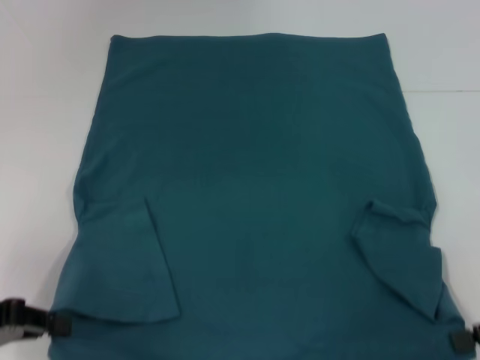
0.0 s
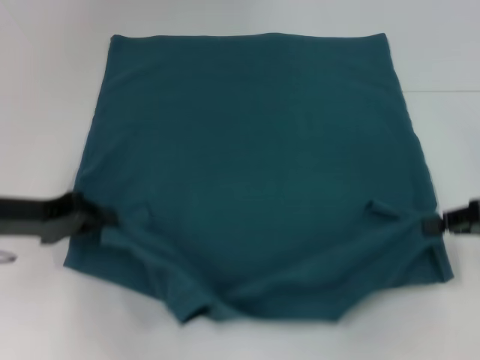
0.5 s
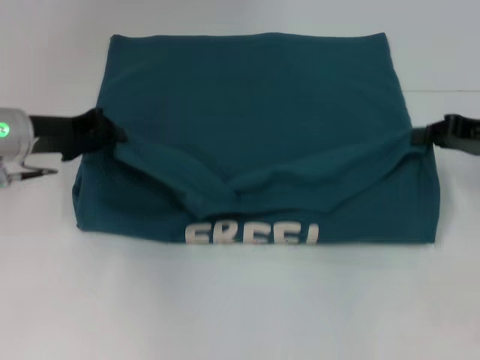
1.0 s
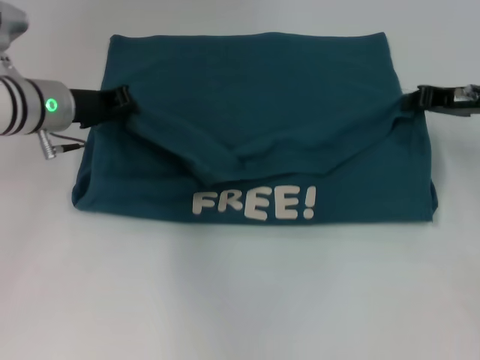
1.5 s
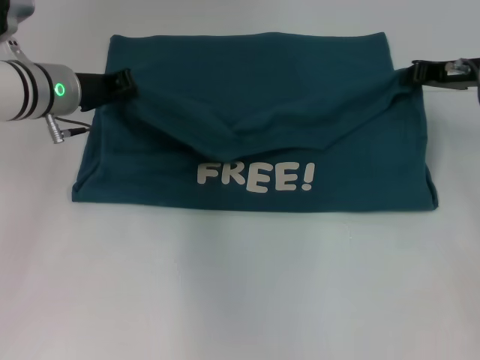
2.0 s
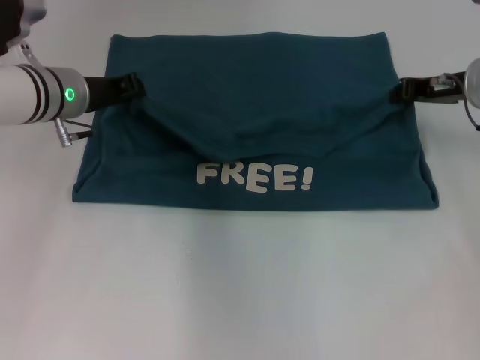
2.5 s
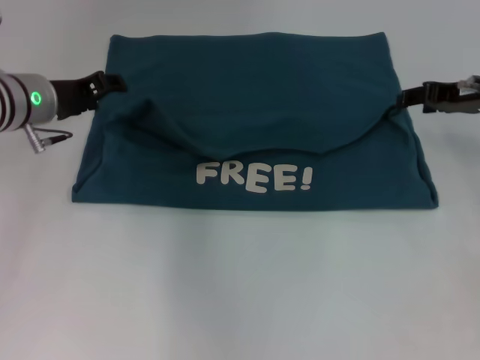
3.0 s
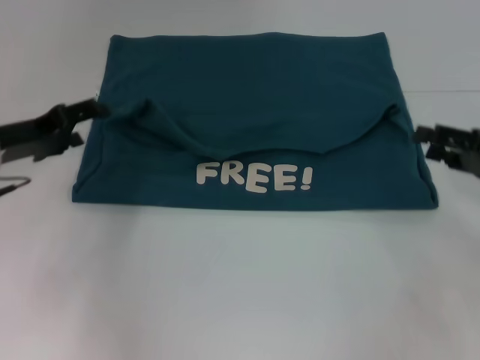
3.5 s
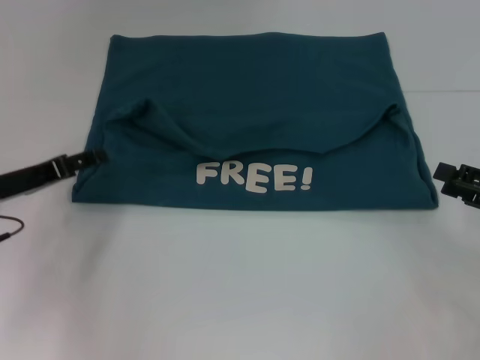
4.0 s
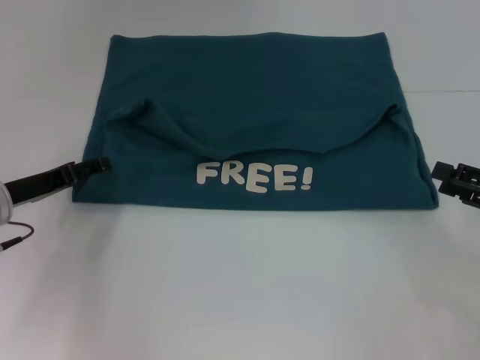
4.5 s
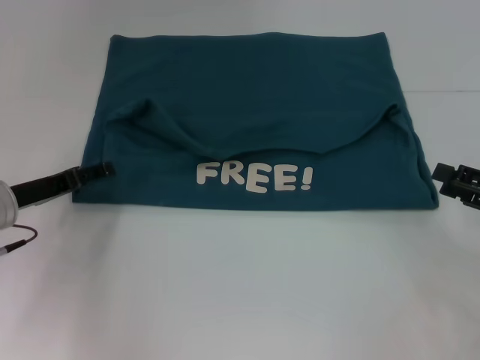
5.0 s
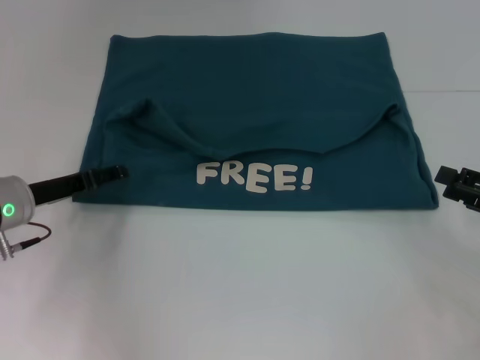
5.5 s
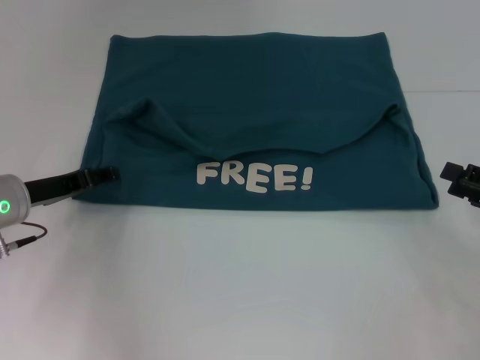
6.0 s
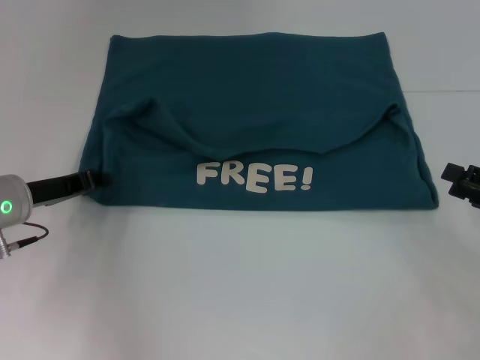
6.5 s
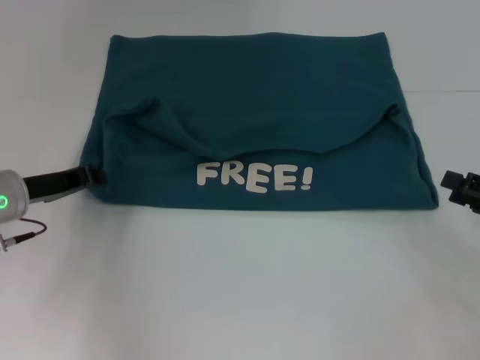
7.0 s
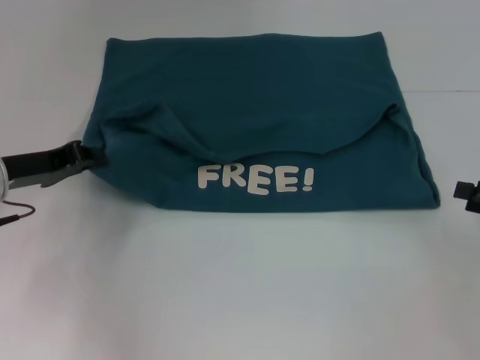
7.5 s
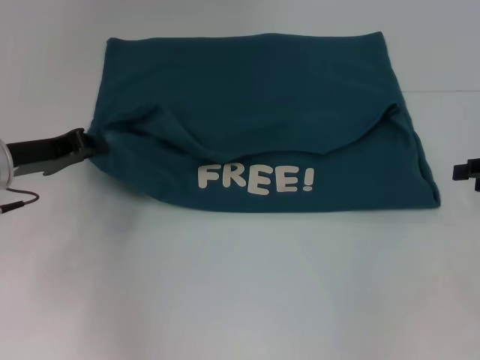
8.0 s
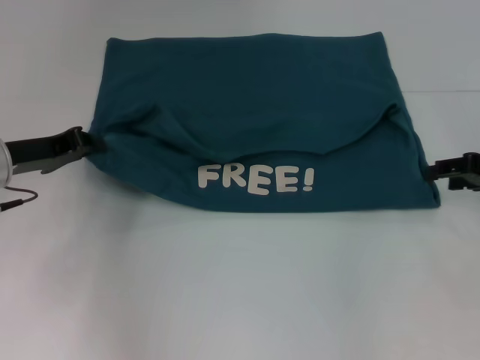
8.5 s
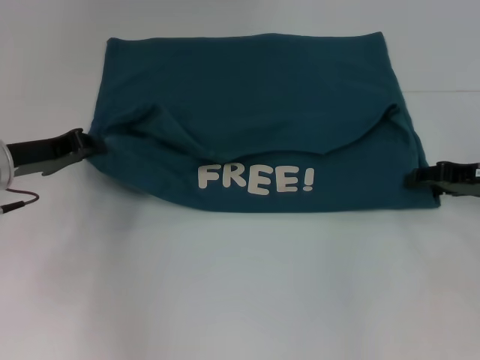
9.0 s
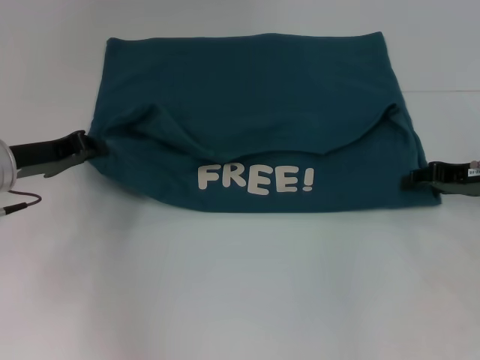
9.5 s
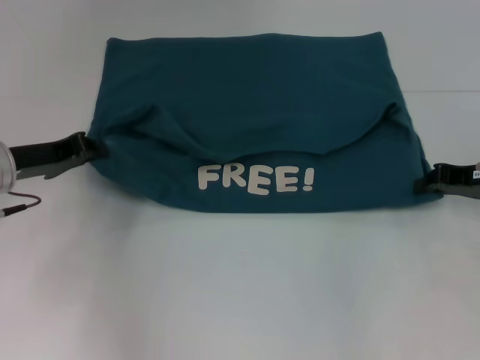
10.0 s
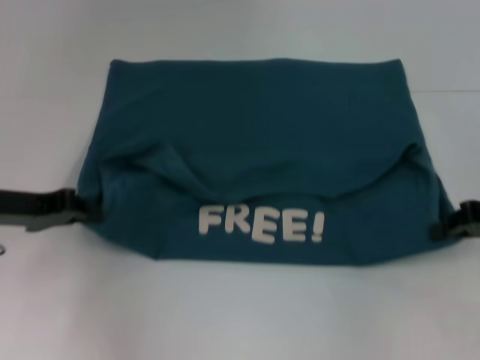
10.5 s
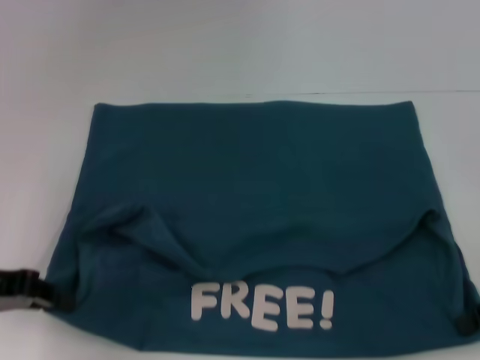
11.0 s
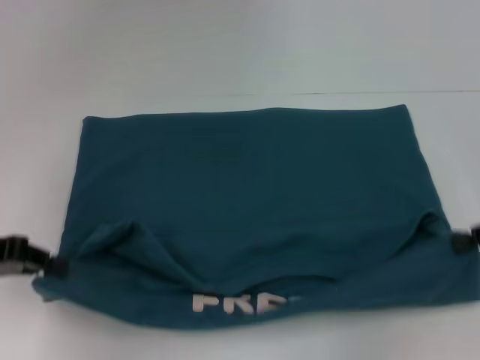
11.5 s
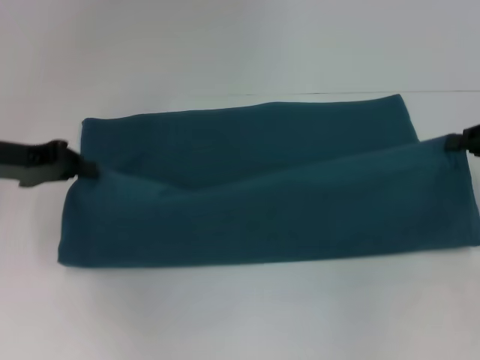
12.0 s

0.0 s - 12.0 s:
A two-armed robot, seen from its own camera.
Step, 0.0 s - 2.5 s: Fold the clothes to the left.
Step, 0.0 s - 2.5 s: Fold the clothes to the right.
Step, 3.0 s - 11.0 s: Pull the clothes with your left hand.
Step, 3.0 s - 11.0 s: Pull the clothes with your right hand.
0.0 s - 2.0 s: The left gripper moves forward and to the right, about 25 cm; the right gripper shifts roughly 20 cm forward.
2.0 s - 4.0 s: The left gripper heads backward, to the left and downward, covering roughly 15 cm, and opens up. The right gripper is displaced backward, to the right and downward by some 20 cm, and opens up.
4.0 s - 6.0 s: There are only small adjustments of the grippers.
6.0 s - 8.0 s: The left gripper closes its fingers. Meanwhile the right gripper travels forward by some 5 cm.
8.0 s - 10.0 s: The right gripper travels to the left by about 5 cm, and closes.
10.0 s - 12.0 s: The right gripper goes backward and returns, approximately 10 cm each way; the left gripper travels upward by some 5 cm, and goes backward and returns, about 10 cm each way.

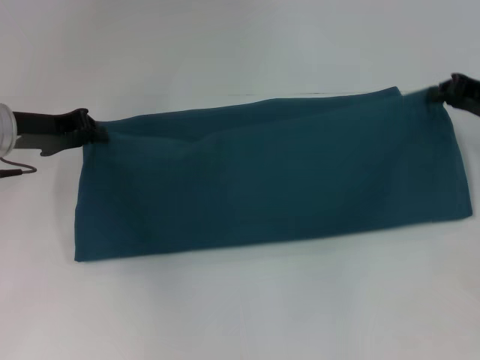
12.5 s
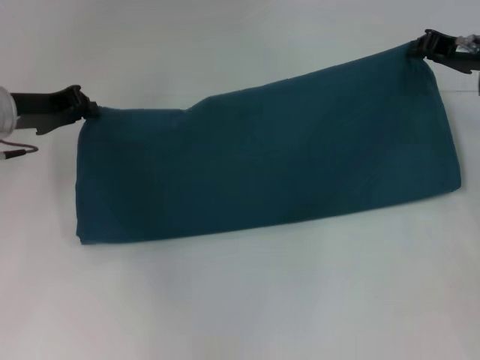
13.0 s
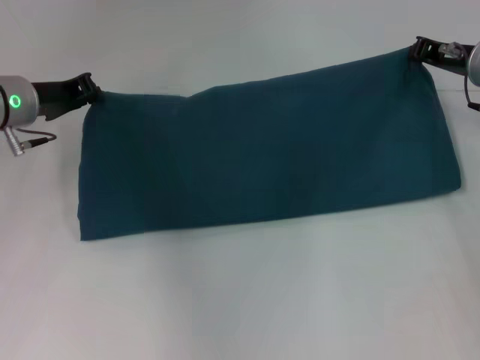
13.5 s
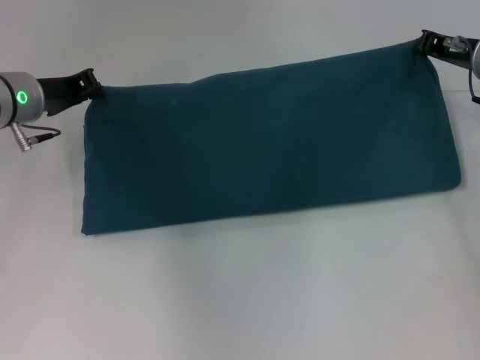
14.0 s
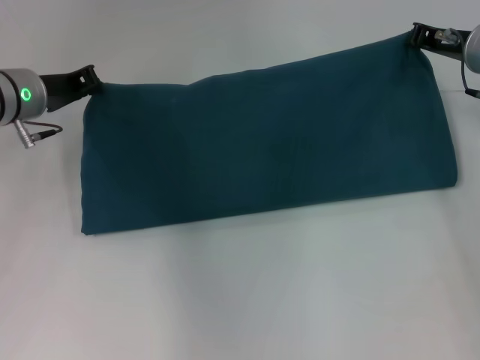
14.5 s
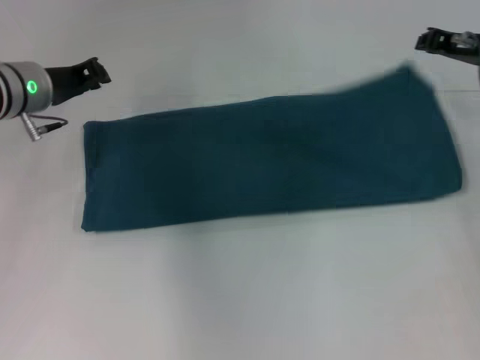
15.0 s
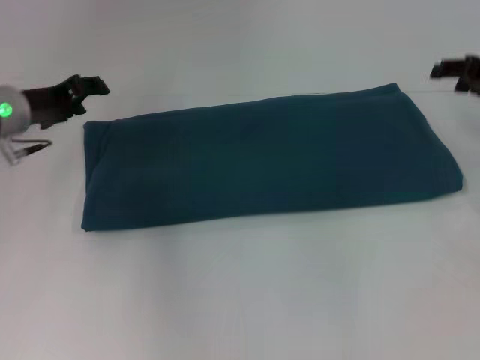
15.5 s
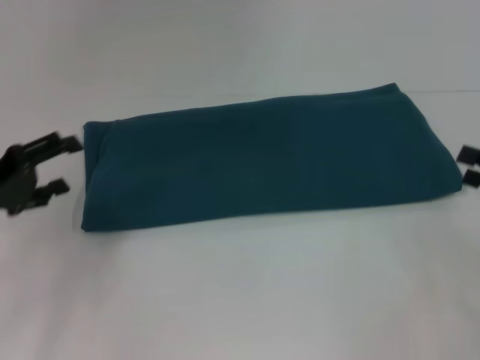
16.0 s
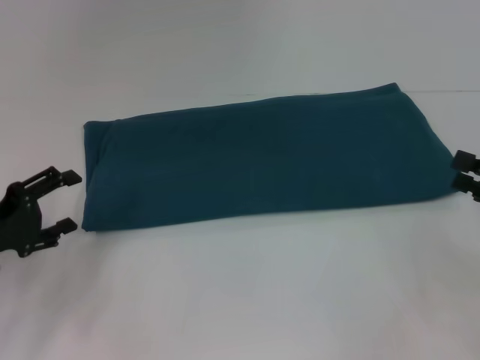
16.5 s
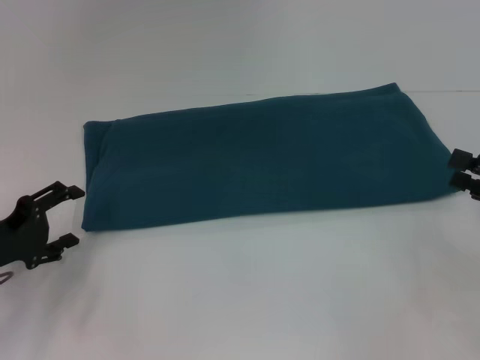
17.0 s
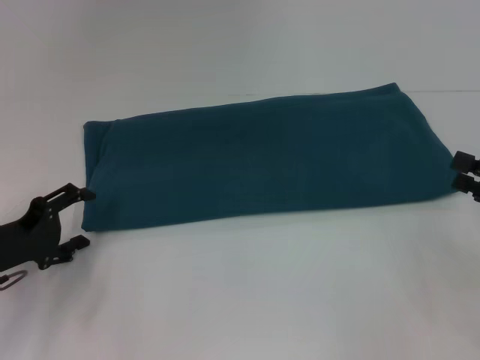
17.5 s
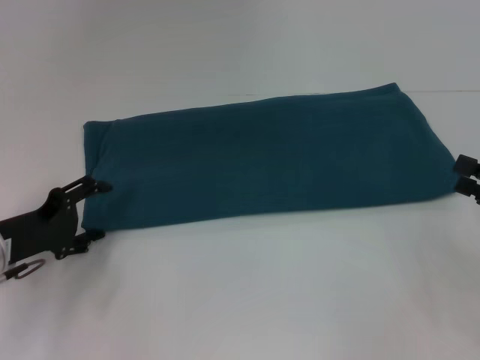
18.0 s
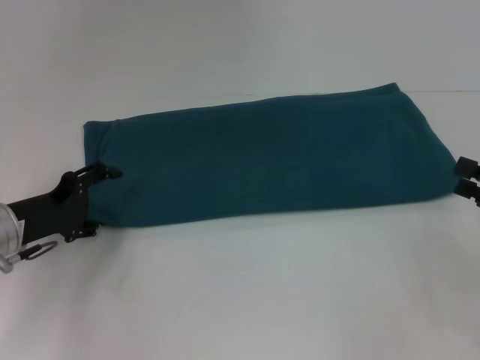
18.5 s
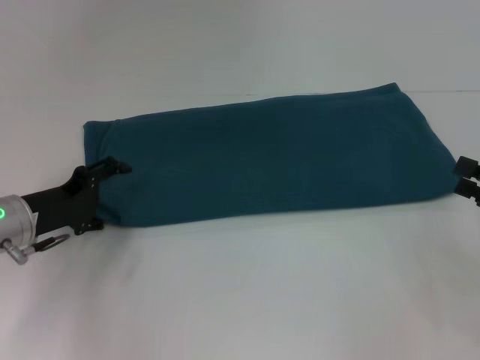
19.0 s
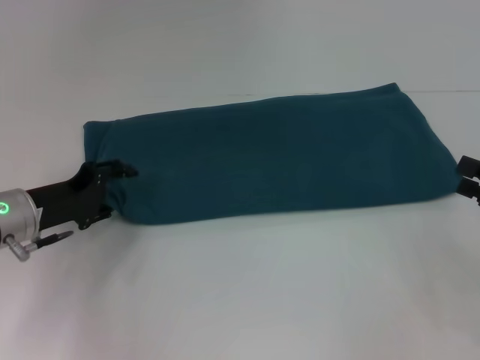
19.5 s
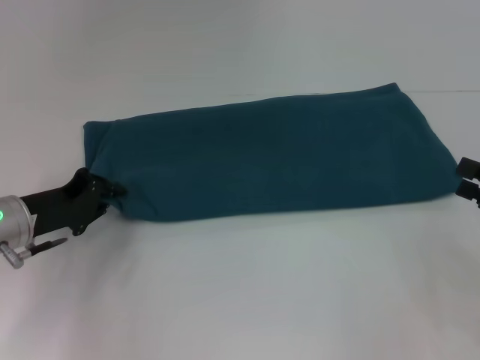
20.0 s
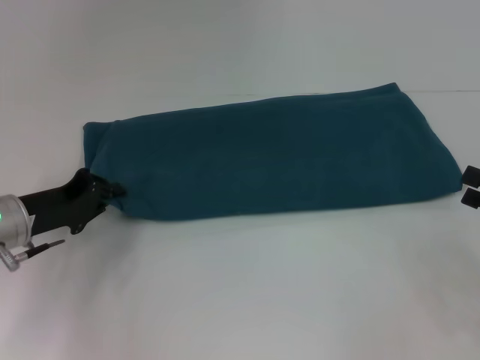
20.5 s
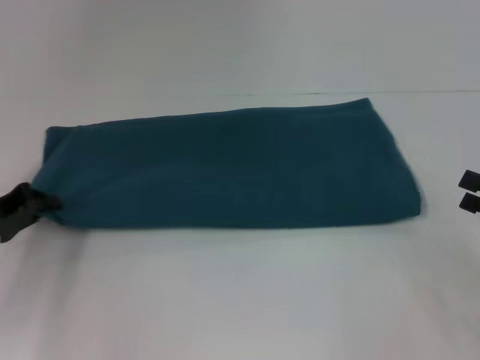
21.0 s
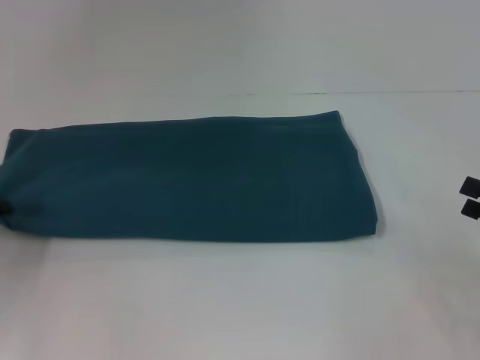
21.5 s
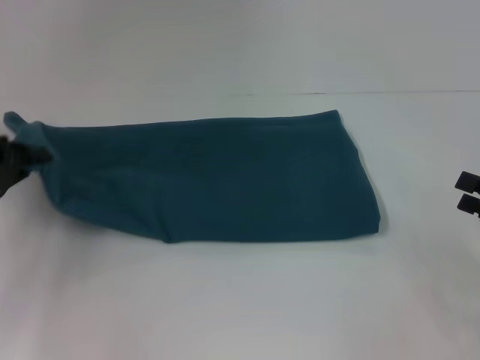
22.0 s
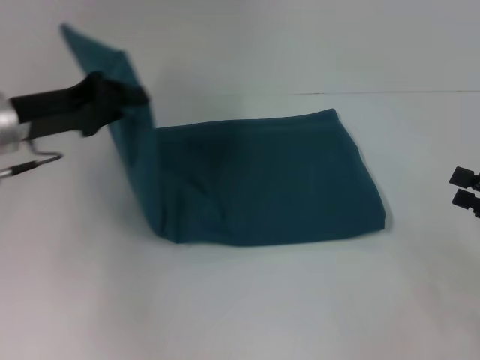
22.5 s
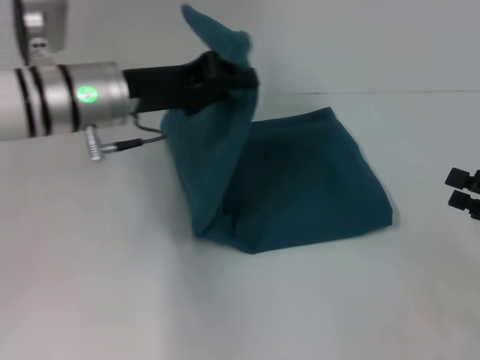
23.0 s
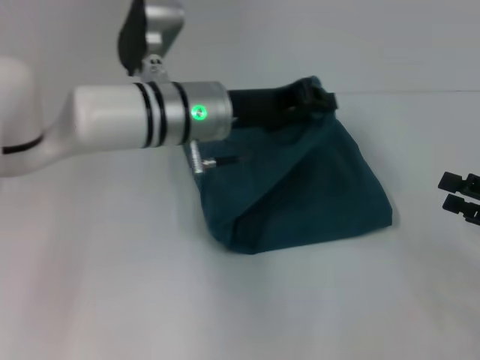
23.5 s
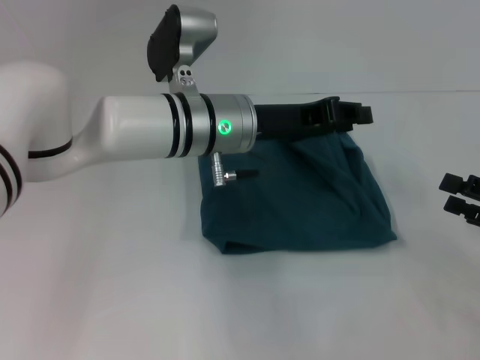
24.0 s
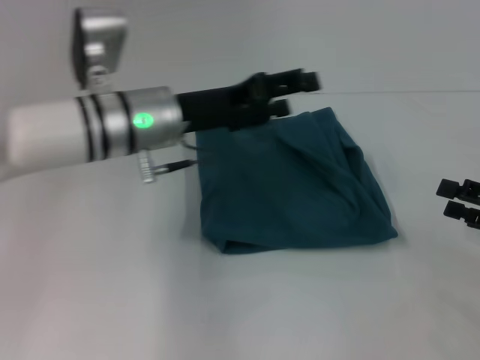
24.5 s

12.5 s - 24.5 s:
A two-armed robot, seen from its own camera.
Step, 12.5 s - 15.0 s: Fold the clothes to the right.
Step, 12.5 s - 24.0 s: Fold the clothes to the left.
12.5 s - 14.5 s: The right gripper heads to the left and forward, covering about 10 cm.
14.5 s - 16.5 s: The right gripper travels backward and to the right by about 20 cm, and opens up, while the left gripper travels backward and to the left by some 20 cm, and opens its fingers.
16.5 s - 18.5 s: The left gripper ends up roughly 5 cm from where it was.
18.5 s - 20.5 s: The left gripper closes up.
20.5 s - 22.5 s: The left gripper shifts about 10 cm upward, and travels to the left and back again, roughly 10 cm each way.
22.5 s - 24.5 s: The left gripper moves to the right, about 15 cm, and opens its fingers.

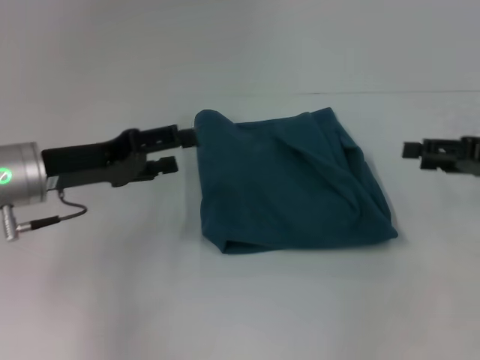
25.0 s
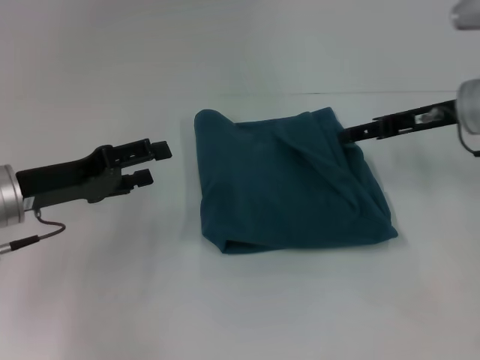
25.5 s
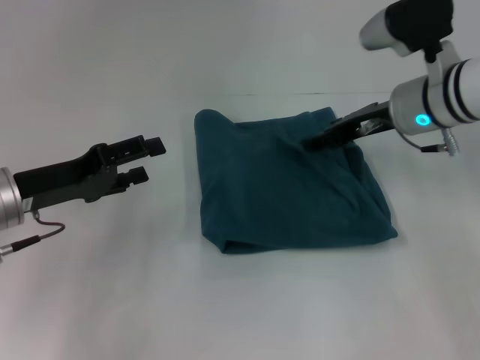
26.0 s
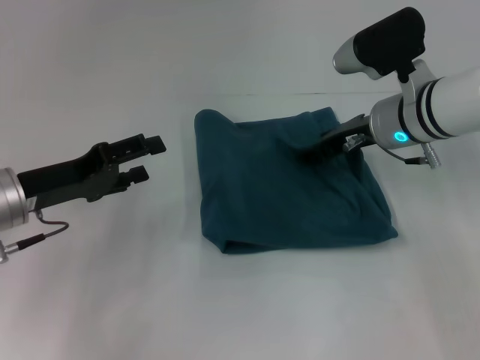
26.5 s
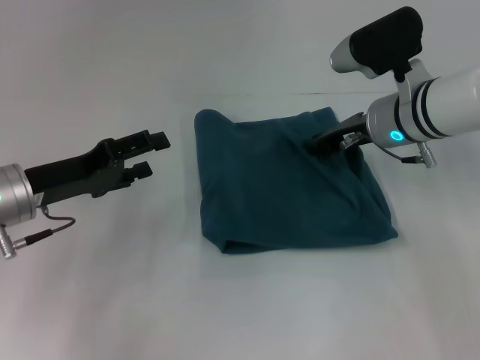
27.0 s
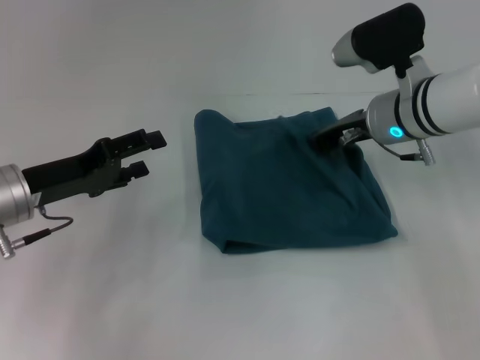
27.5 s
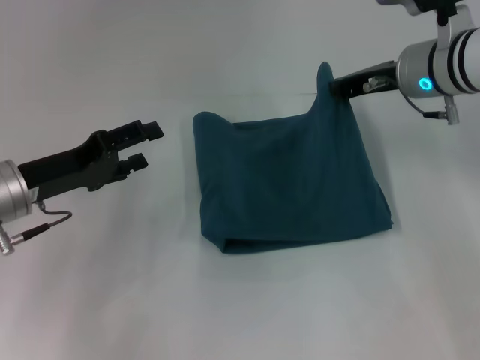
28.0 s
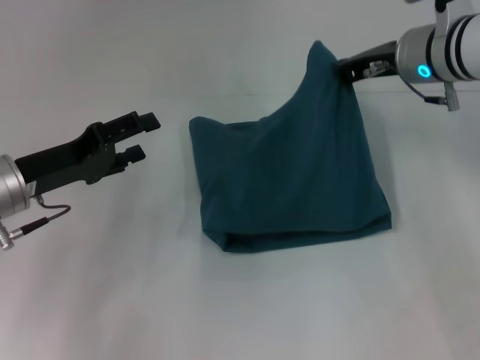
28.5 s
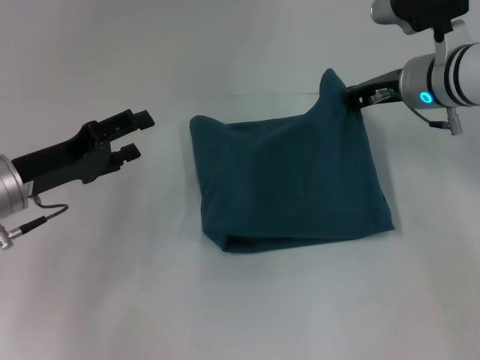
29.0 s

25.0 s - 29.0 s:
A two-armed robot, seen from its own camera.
25.0 s - 27.0 s: The right gripper heads to the left and forward, covering some 20 cm, and closes.
